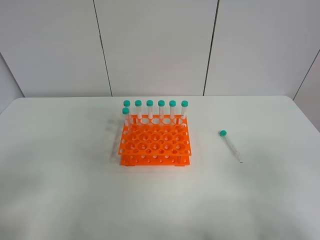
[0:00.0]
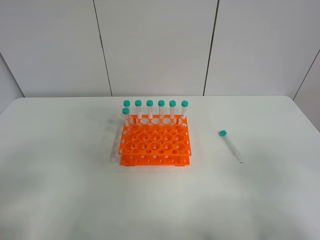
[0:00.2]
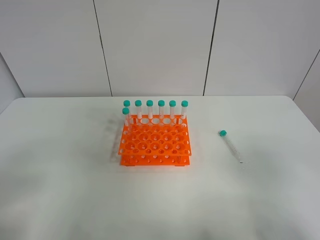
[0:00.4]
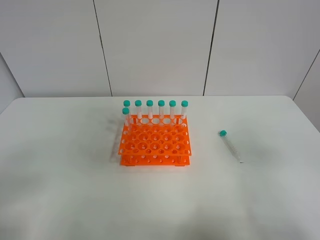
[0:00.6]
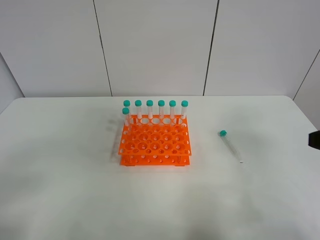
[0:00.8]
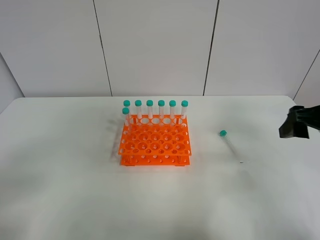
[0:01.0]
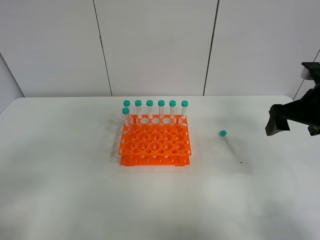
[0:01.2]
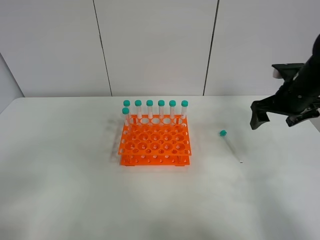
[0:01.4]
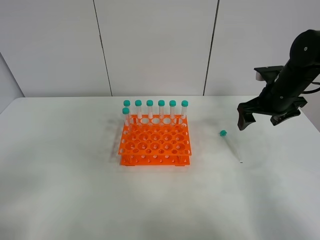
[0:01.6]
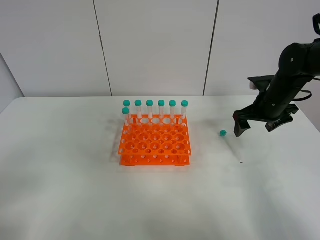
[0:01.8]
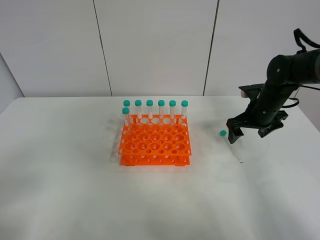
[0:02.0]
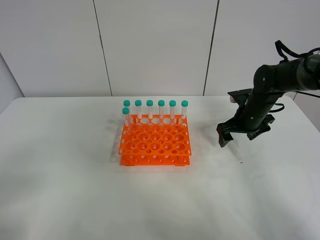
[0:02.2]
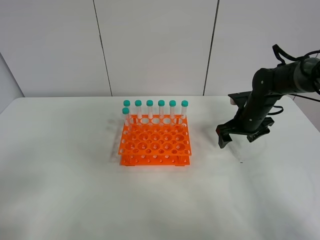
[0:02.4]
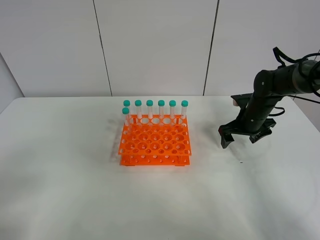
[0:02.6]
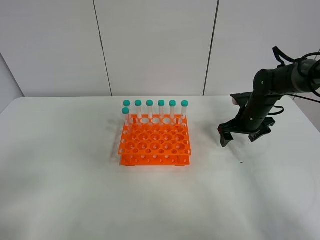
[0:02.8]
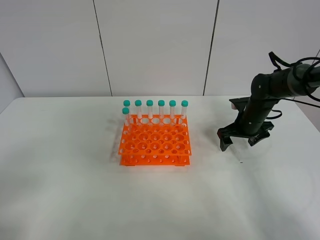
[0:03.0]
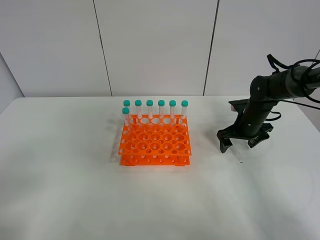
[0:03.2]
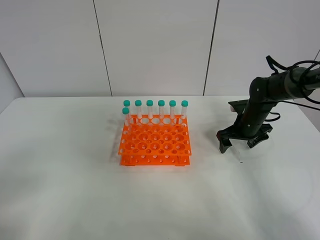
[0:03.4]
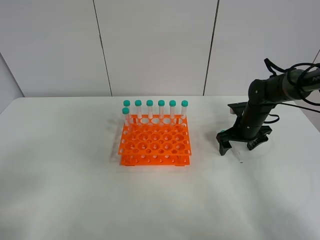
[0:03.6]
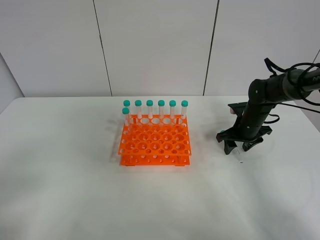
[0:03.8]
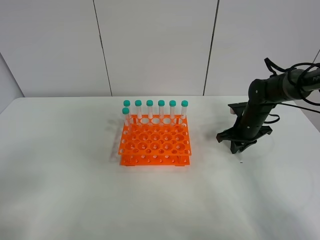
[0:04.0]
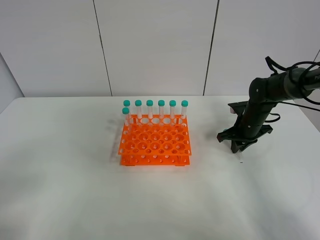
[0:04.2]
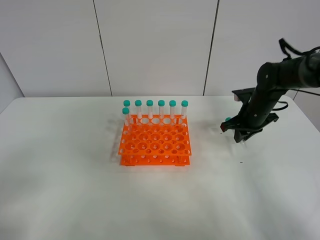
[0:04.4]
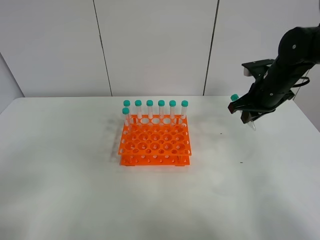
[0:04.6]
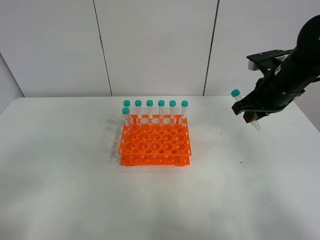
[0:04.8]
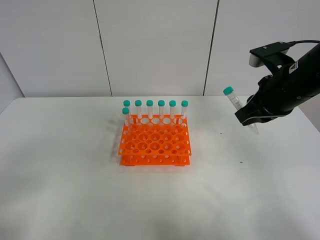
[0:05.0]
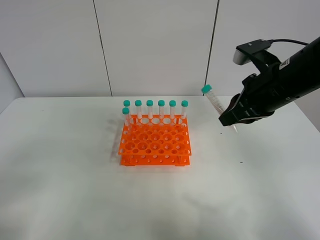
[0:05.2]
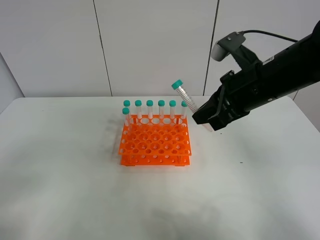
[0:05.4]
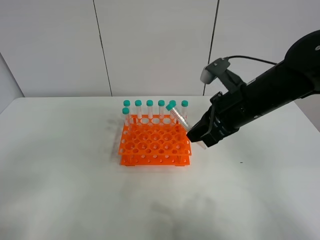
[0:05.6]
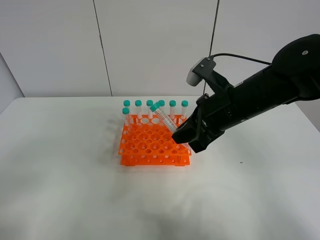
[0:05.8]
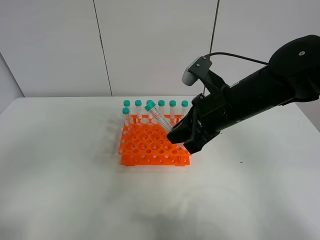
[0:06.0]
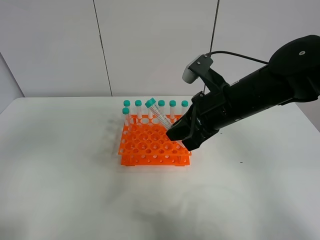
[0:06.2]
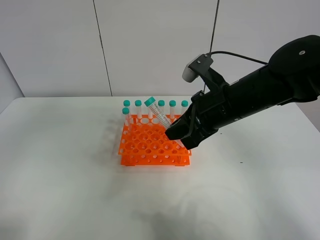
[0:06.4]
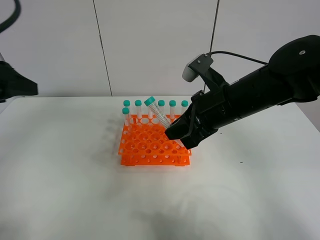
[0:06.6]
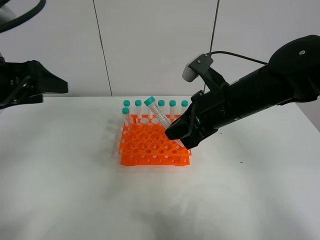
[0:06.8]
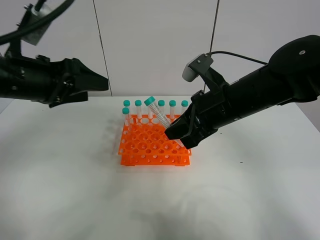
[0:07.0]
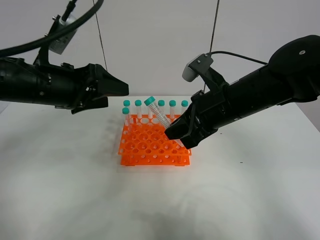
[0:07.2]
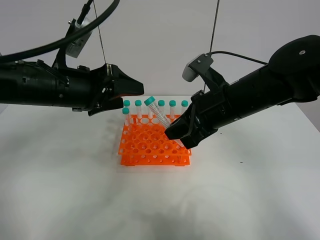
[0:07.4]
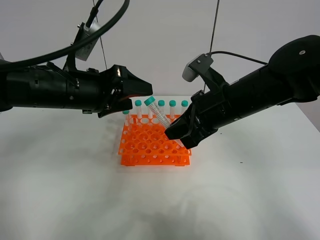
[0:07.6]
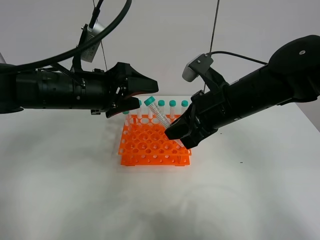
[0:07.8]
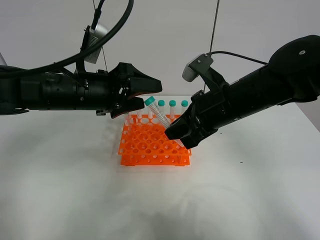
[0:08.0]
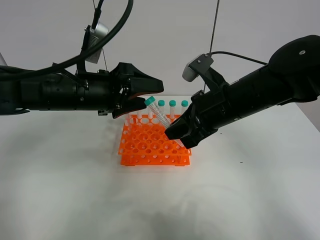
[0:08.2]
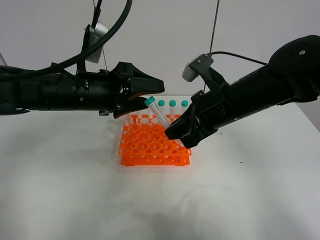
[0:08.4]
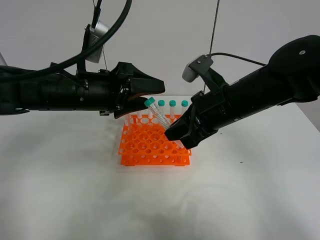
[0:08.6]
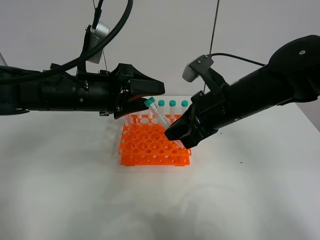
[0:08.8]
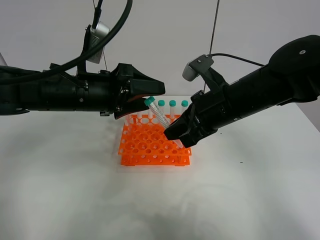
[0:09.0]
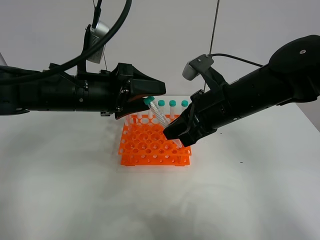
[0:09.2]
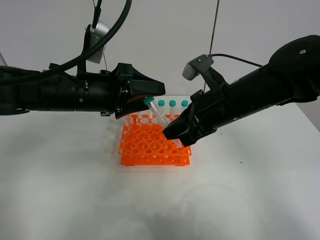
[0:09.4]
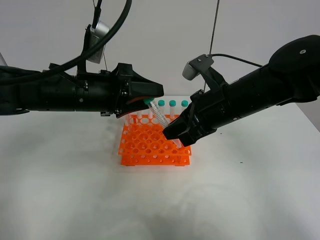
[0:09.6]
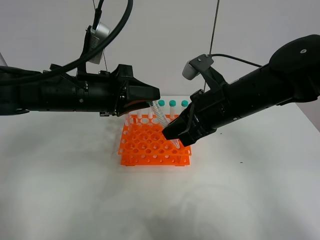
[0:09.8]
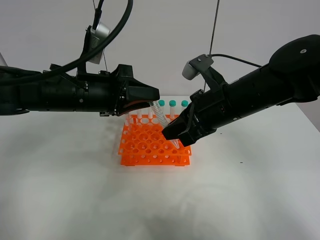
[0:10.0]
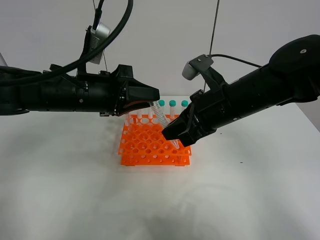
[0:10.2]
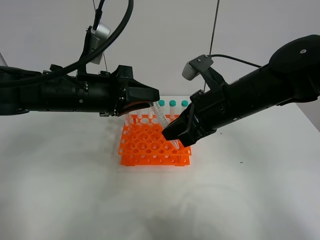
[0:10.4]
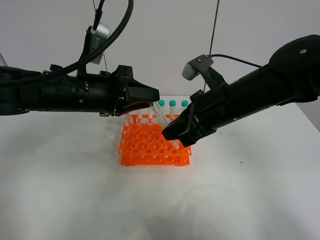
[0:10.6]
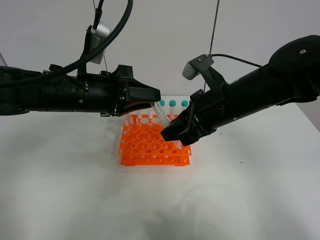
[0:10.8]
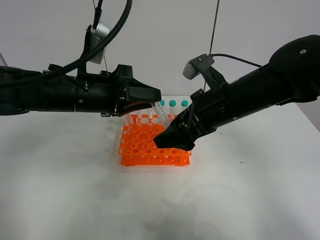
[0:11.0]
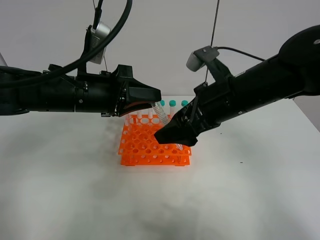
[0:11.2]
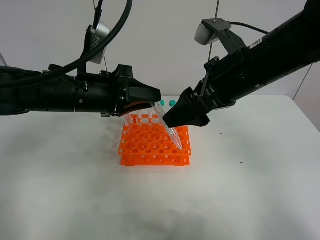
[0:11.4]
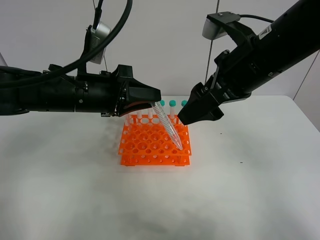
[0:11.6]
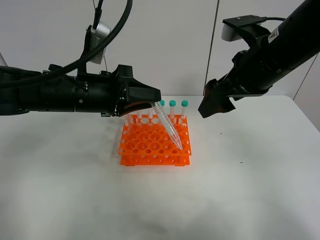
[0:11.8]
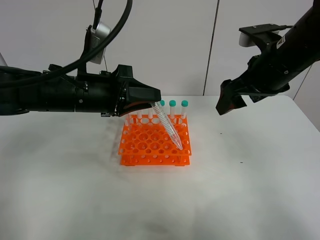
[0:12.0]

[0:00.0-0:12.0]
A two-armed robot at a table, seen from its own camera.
Task of the whole recording: Put the test tube on the table back onto the test tube rack.
Step, 0:00.0 to 0:04.6: Pick up the test tube with the right gripper.
Step, 0:04.8 to 0:11.6: Move the test tube from the right gripper to the left gripper.
0:00.0 to 0:01.6: The right gripper goes about 35 cm forward.
0:01.6 to 0:03.0: The right gripper moves downward, approximately 10 cm.
0:03.0 to 0:04.4: The right gripper moves upward, some 5 cm, and closes.
0:04.4 to 0:06.0: The right gripper heads backward, to the left and upward, covering some 20 cm.
0:06.0 to 0:07.6: The left gripper moves forward and to the right, about 30 cm.
0:07.6 to 0:09.0: The grippers make only small movements.
0:09.0 to 0:10.4: The left gripper closes up.
0:10.4 to 0:12.0: The right gripper moves to the right and upward, approximately 10 cm, and opens its fingers.

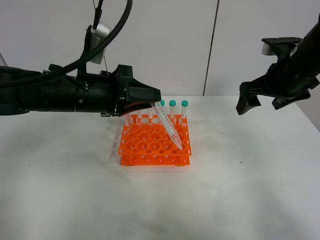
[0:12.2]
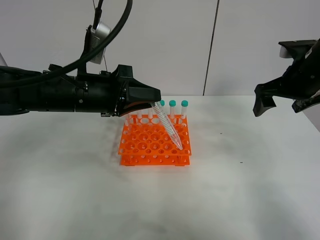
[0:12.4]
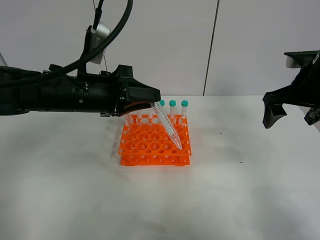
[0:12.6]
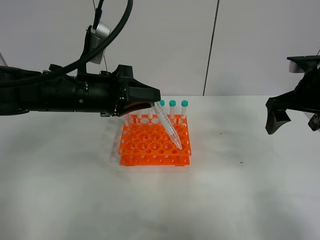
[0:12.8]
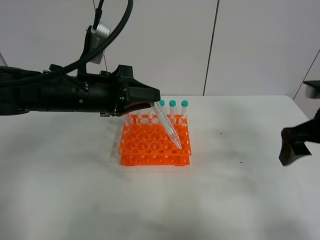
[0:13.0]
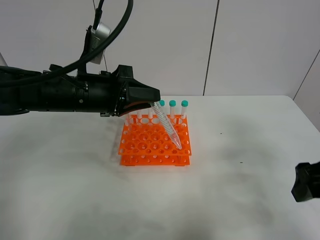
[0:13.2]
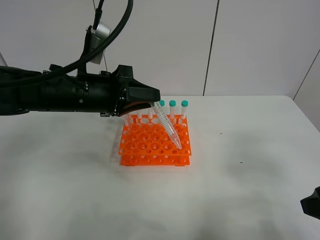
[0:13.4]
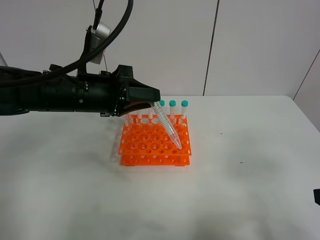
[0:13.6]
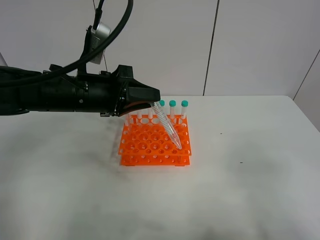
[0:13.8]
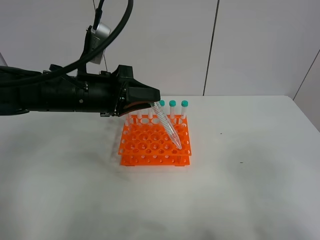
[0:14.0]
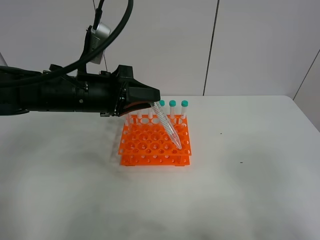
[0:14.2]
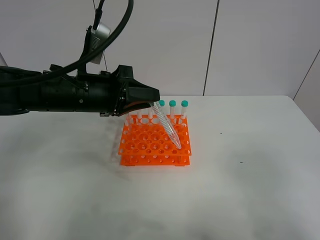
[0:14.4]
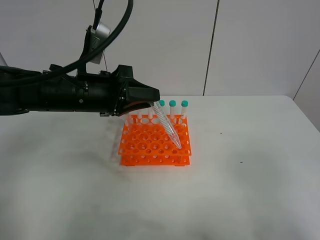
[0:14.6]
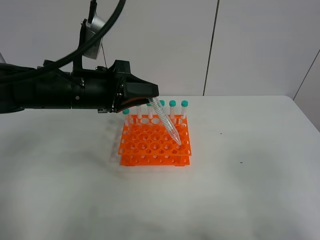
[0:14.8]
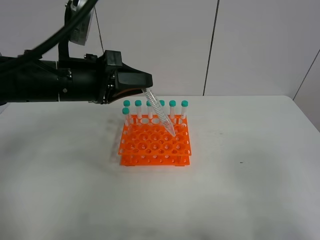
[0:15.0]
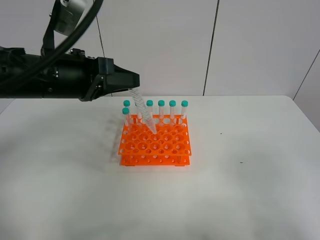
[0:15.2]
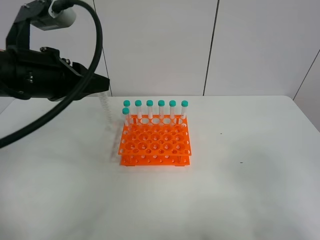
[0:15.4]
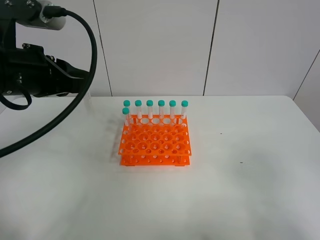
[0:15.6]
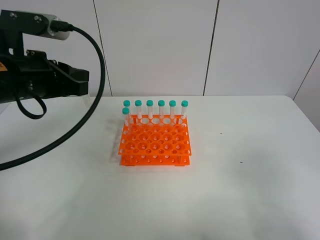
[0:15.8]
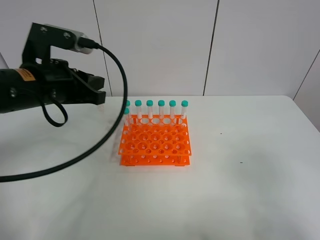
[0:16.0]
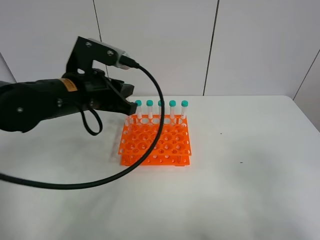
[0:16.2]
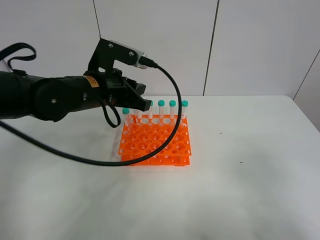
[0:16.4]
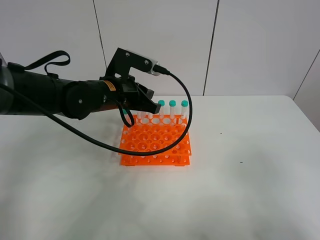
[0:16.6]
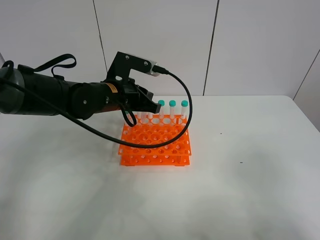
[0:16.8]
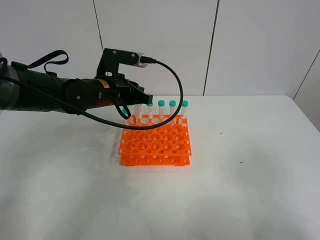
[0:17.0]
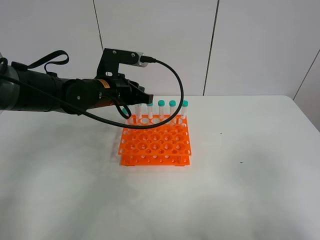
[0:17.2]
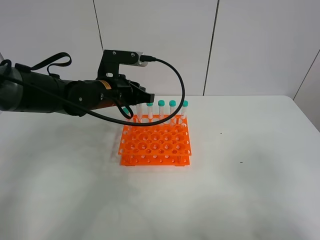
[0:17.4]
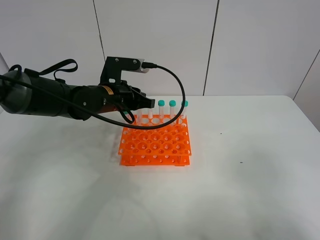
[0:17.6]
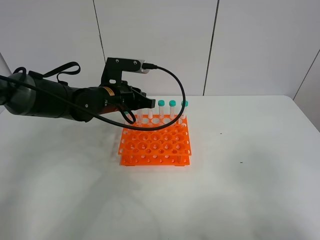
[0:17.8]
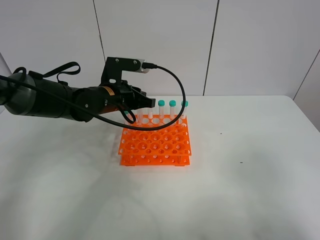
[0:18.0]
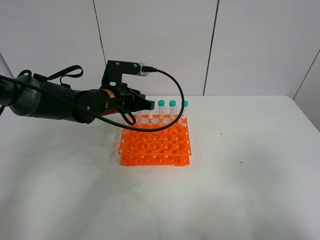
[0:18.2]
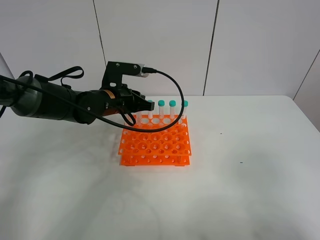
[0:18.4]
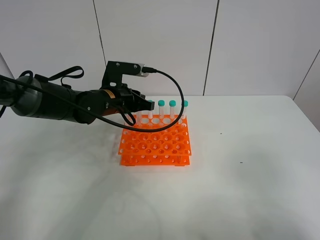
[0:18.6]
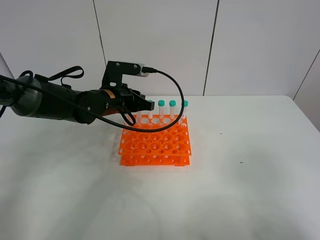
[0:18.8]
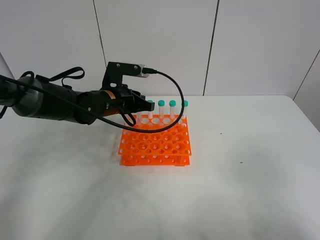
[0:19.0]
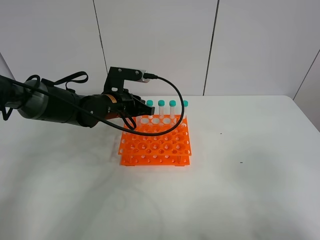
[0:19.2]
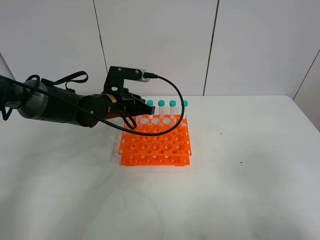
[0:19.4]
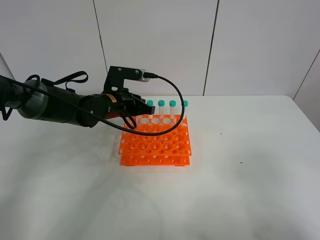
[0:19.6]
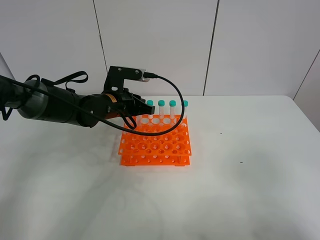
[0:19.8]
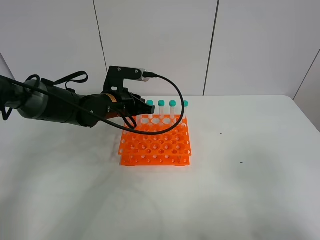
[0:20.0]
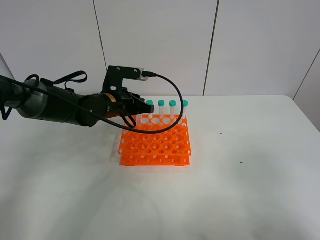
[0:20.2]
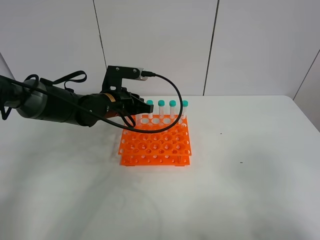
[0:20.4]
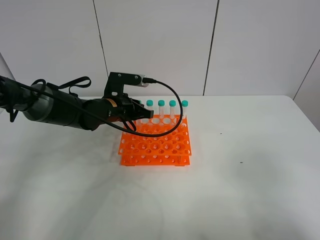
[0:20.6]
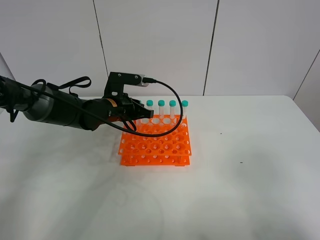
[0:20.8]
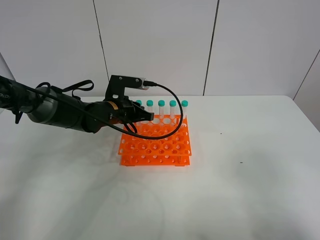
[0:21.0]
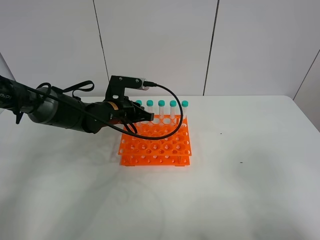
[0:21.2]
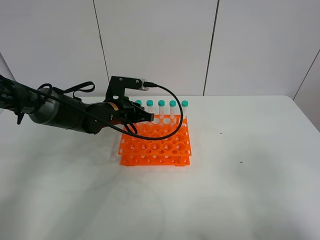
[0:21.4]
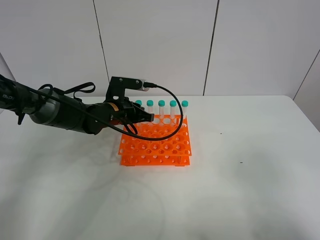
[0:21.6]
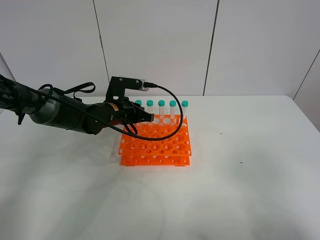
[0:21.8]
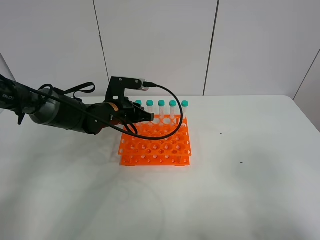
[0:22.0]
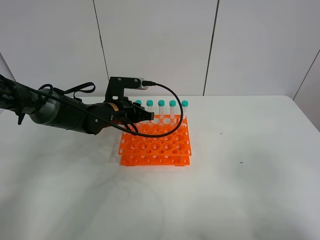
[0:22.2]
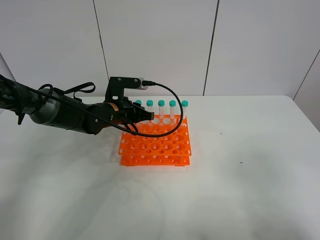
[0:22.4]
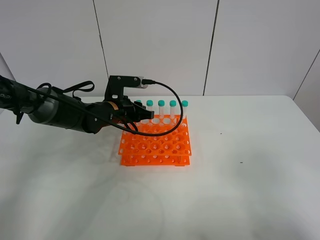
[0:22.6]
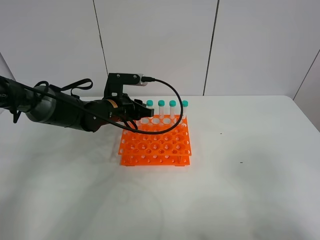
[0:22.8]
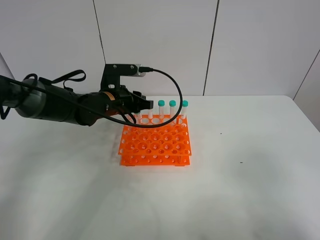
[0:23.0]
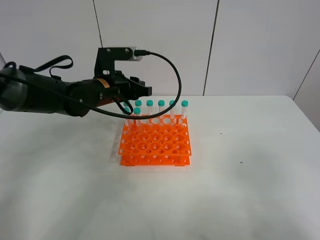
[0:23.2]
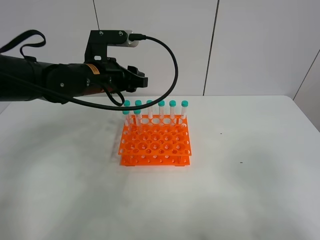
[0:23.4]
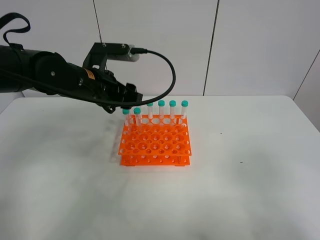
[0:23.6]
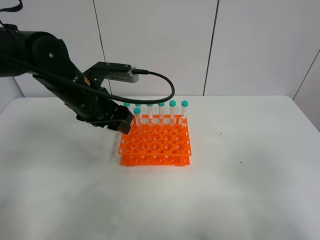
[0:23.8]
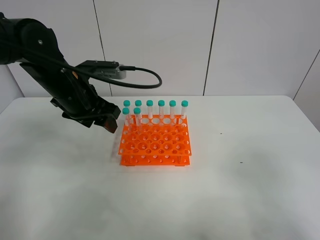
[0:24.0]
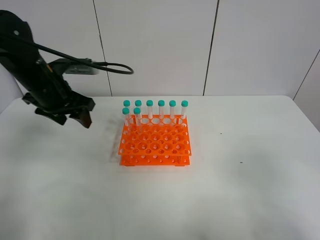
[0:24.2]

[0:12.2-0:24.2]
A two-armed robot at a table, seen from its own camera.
Task of the whole recording: Put the test tube on the table back onto the test tube rack.
Step, 0:12.2 to 0:24.0: Place the test tube on the test tube rack with the left gripper.
0:12.2 to 0:13.8: The right gripper moves backward, some 30 cm.
0:13.8 to 0:15.2: The left gripper travels upward by about 5 cm.
0:15.2 to 0:16.6: The left gripper heads forward, downward and to the right, covering approximately 15 cm.
0:16.6 to 0:18.2: The grippers stay close to where they were, moving slightly.
0:18.2 to 0:19.8: The two grippers keep their place.
0:19.8 to 0:21.2: The grippers move only a little.
0:21.2 to 0:22.6: Both grippers stay about where they are.
0:22.6 to 0:24.2: The left gripper goes approximately 15 cm to the left and upward, and opens up.
